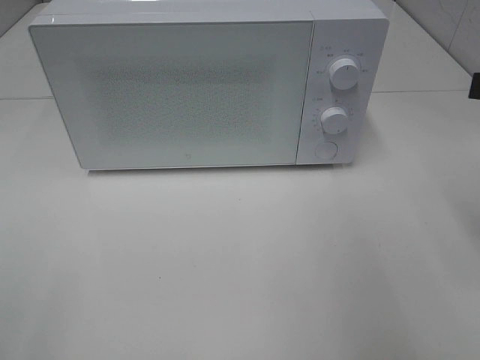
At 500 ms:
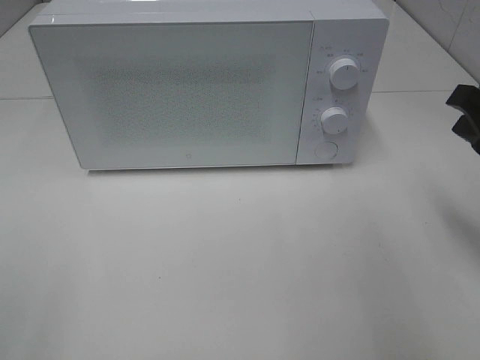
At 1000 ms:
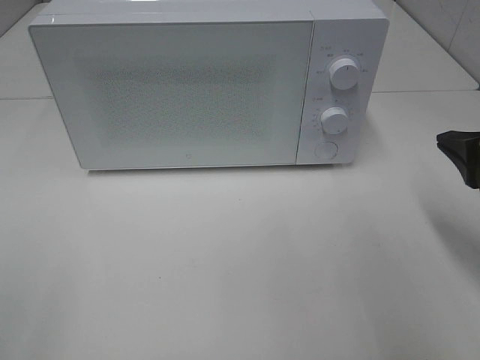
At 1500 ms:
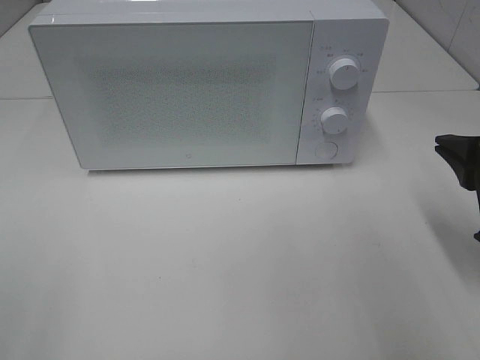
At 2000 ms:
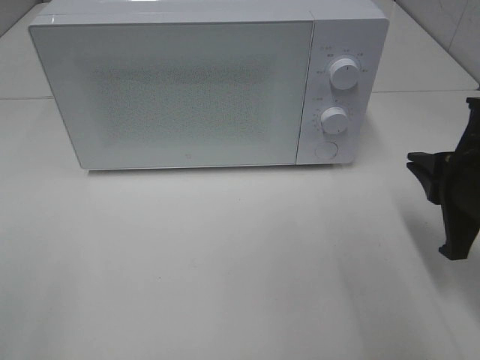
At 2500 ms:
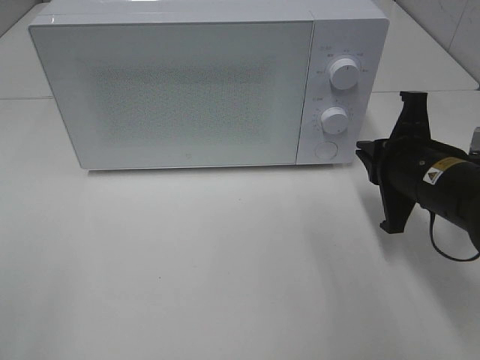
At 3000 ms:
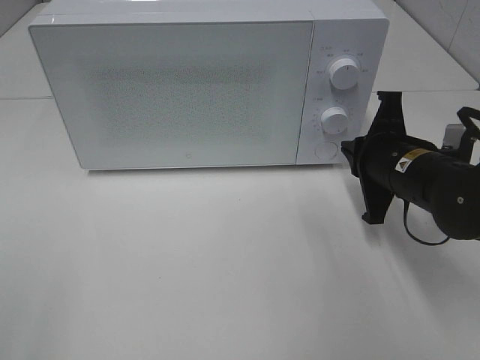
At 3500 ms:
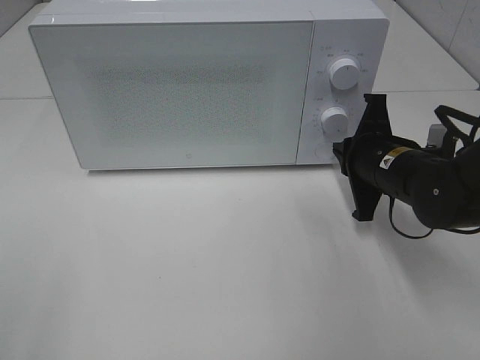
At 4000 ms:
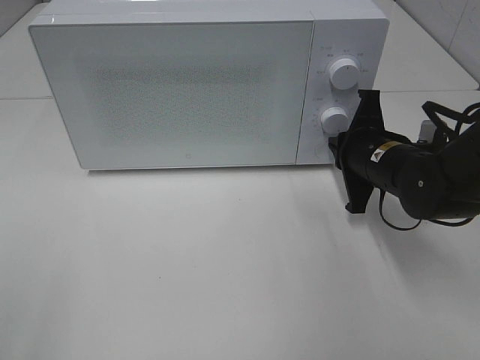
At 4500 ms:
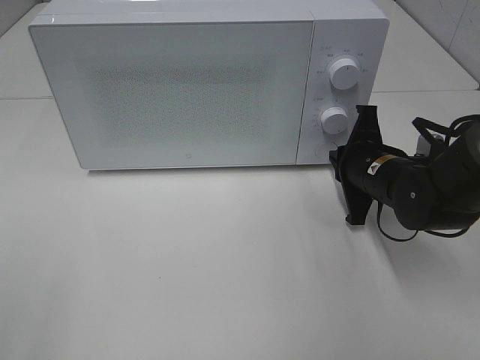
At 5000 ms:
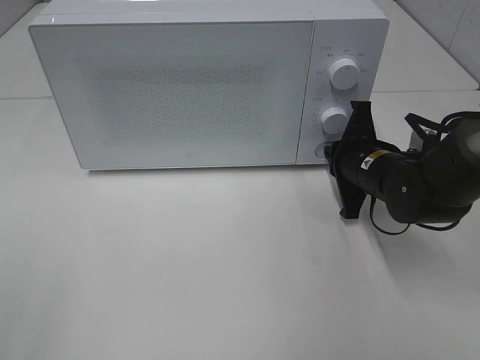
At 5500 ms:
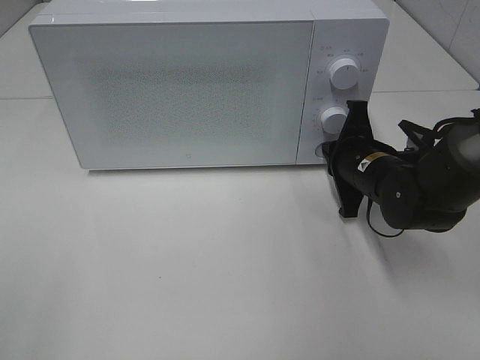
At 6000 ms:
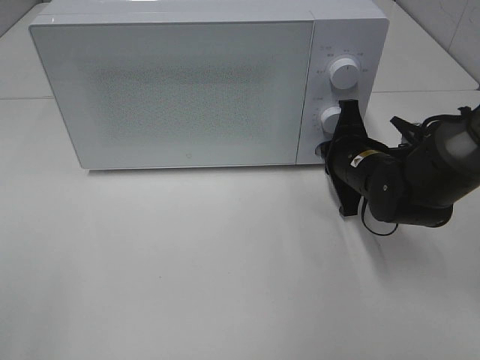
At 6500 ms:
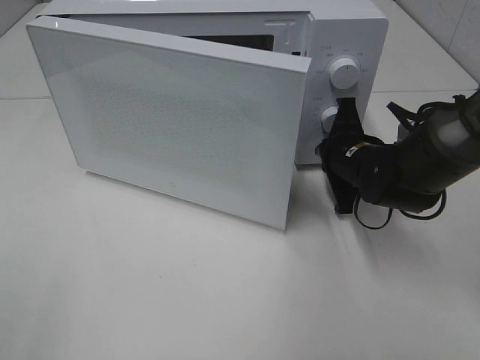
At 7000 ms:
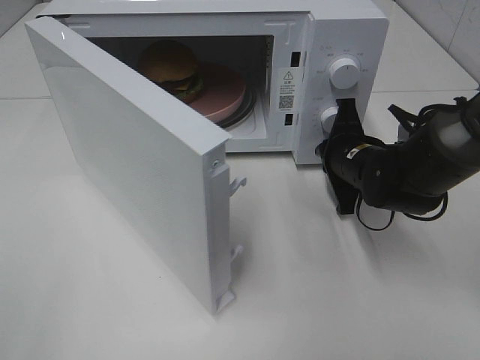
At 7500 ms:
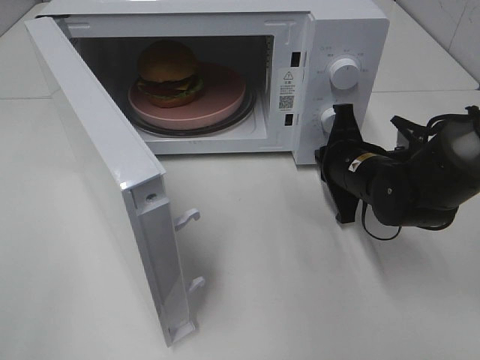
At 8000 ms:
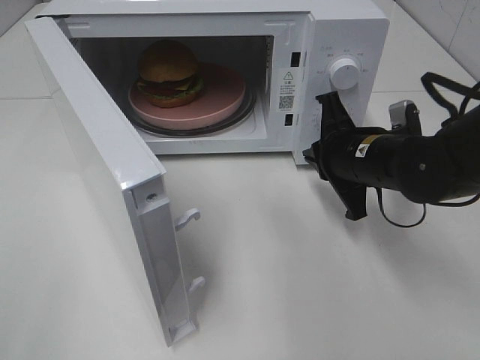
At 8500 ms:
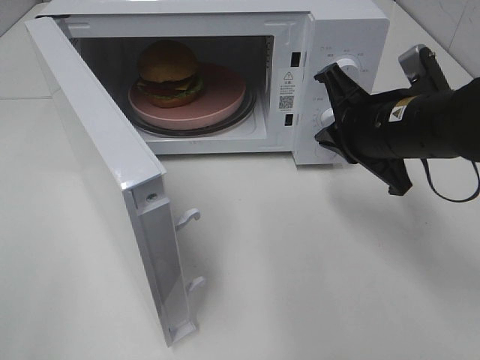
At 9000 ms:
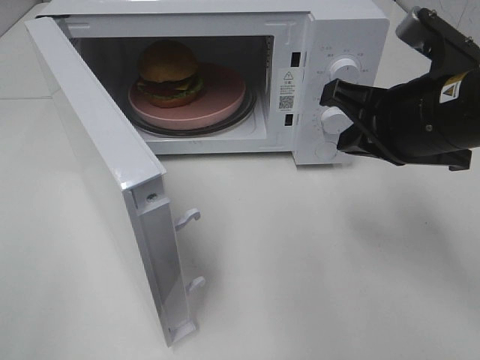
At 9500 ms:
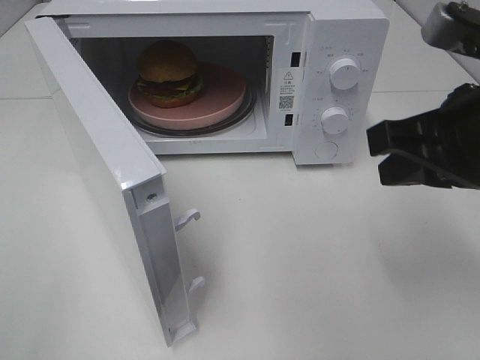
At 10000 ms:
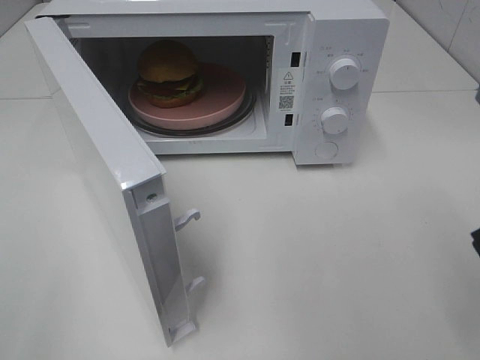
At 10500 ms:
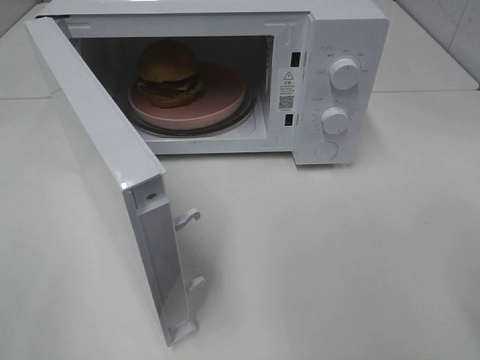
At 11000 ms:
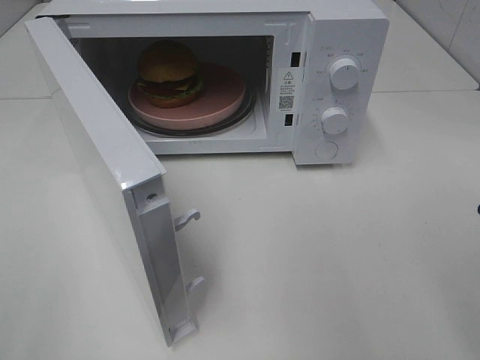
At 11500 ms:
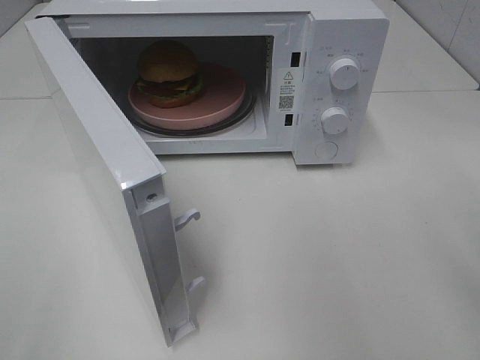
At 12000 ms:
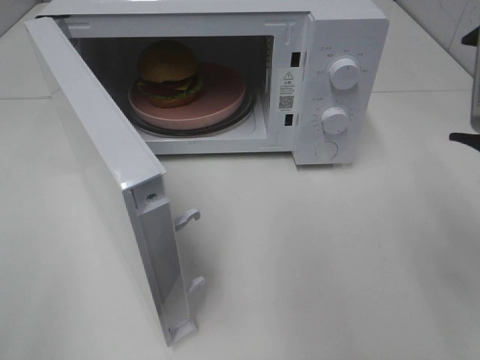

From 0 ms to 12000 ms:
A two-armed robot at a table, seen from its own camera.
Task of the whole recording: Heat the burger.
Step, from 0 ms to 7500 ms: Right hand: press the switch.
From 0 ms to 2000 ms: The right gripper heads downward, covering about 10 cm.
From 2000 ms to 4000 ms: The right gripper heads forward, downward and to the left, covering about 15 cm.
From 4000 ms to 6000 ms: The grippers make only small movements.
From 6000 ms to 8000 ms: The right gripper shifts by some 5 cm.
From 8000 ms to 10000 ms: The right gripper is displaced backward, upward and to the right by roughly 25 cm.
From 10000 ms to 12000 ms: The right gripper changes place by approximately 5 cm, and opens up.

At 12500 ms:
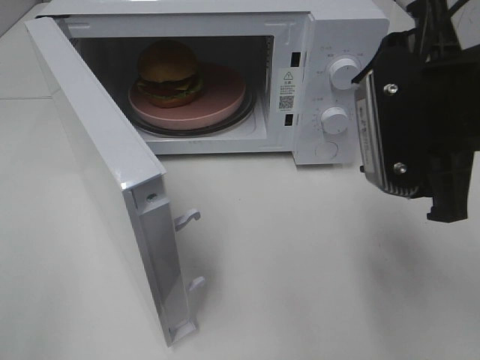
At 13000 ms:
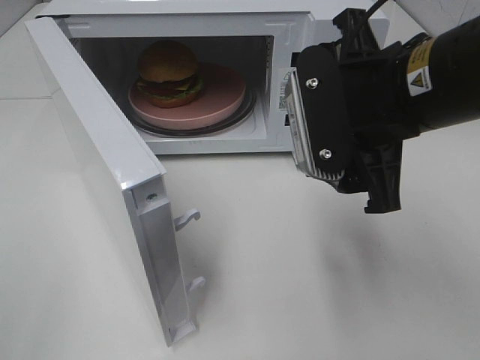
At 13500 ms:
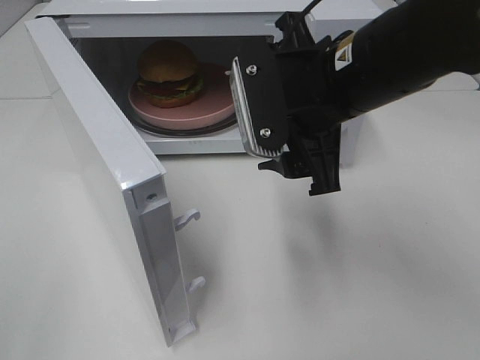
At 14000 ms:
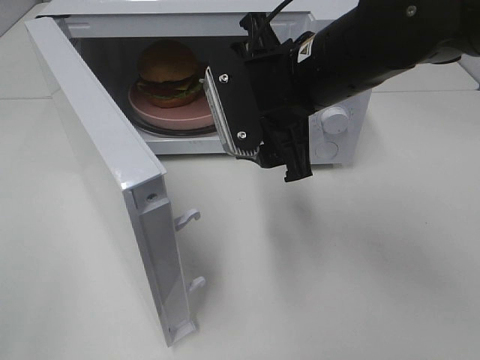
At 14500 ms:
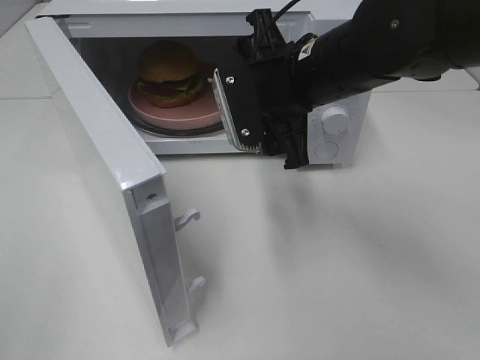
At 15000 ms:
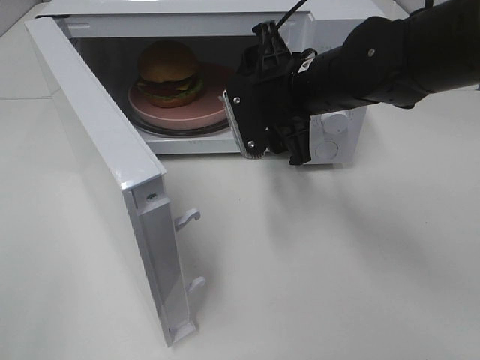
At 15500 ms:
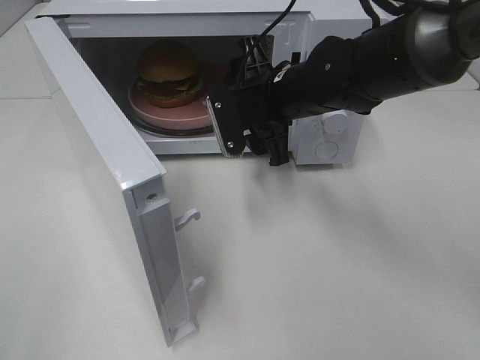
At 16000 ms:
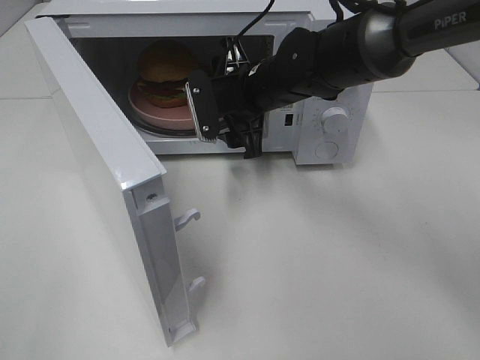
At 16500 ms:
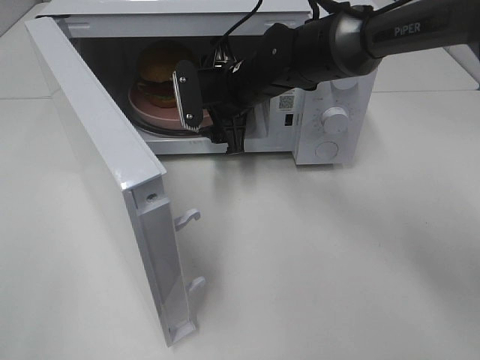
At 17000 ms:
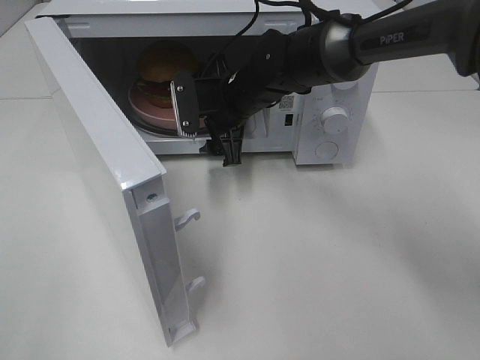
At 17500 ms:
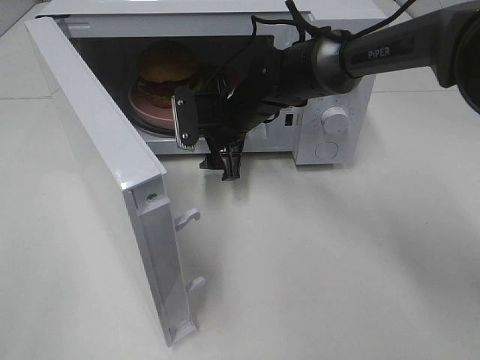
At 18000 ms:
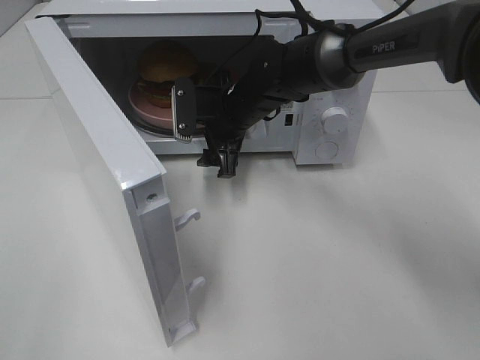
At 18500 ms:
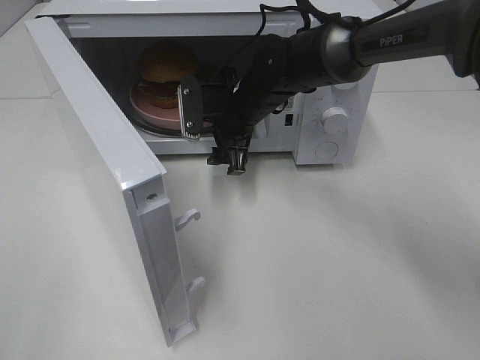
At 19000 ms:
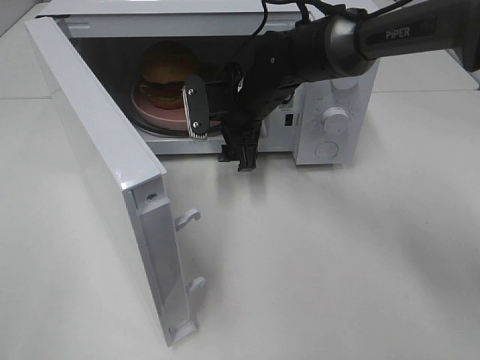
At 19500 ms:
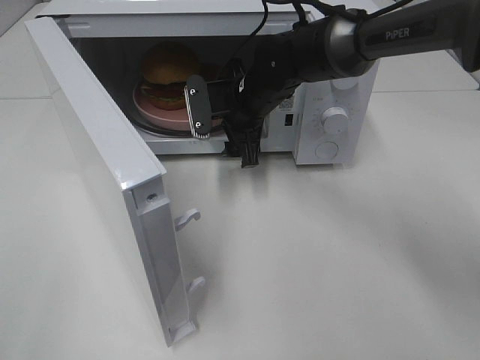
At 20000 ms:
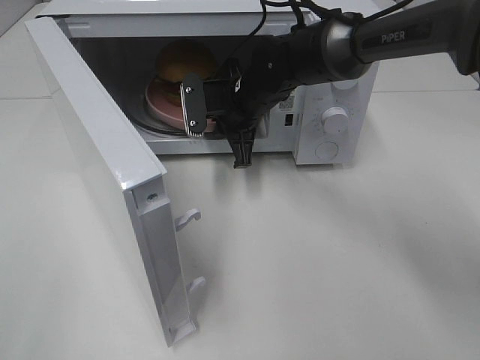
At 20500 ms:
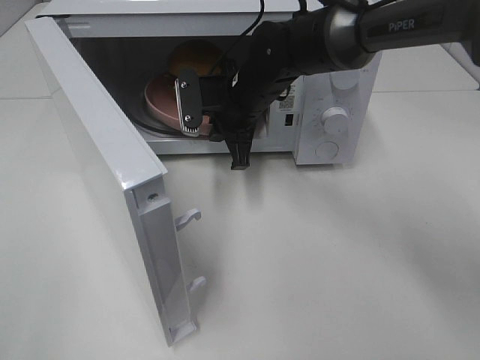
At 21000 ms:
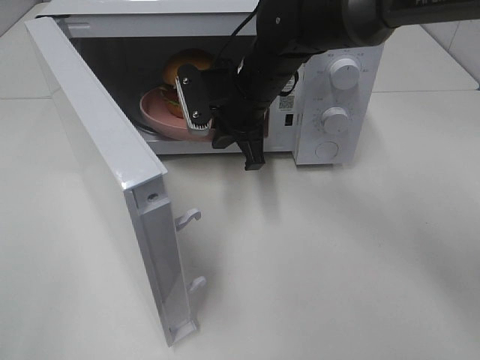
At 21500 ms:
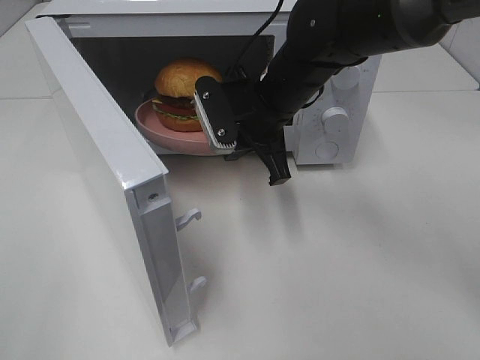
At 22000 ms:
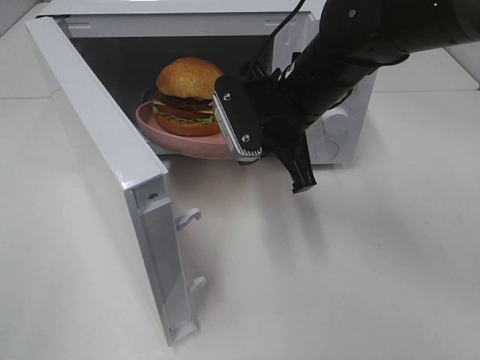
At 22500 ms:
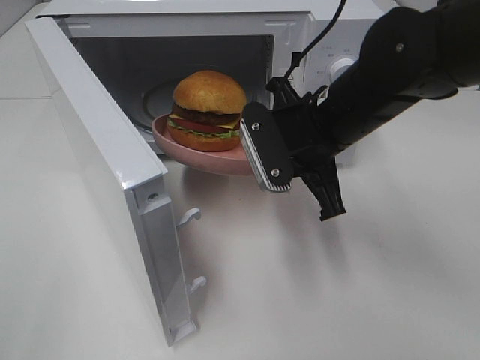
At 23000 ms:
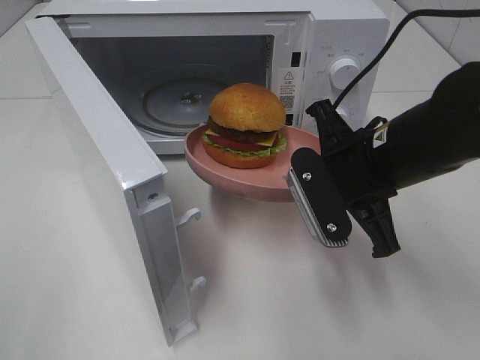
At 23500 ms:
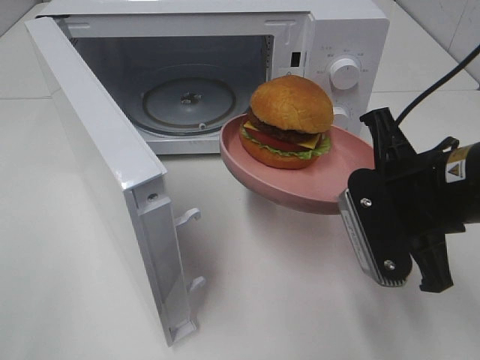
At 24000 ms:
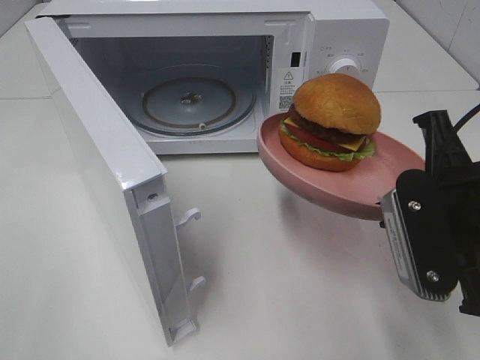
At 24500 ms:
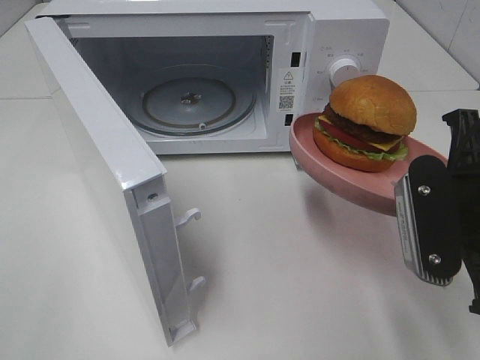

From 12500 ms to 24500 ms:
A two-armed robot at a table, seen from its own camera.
Task of the whole recording: Heat the burger.
Step, from 12500 ms to 20000 ms: Right hand: grab the plate with the hamburger.
From 12500 ms to 14500 ms: The right gripper shifts some 15 cm forward and to the left.
From 14500 ms to 16500 ms: The right gripper travels forward, downward and to the left by roughly 15 cm.
From 16500 ms to 18500 ms: The grippers make only small movements.
From 18500 ms to 20500 ms: The right gripper closes up.
From 20500 ms to 22500 ms: The right gripper heads backward and to the right, covering some 15 cm.
From 22500 ms to 24500 ms: The right gripper travels backward and to the right by roughly 15 cm.

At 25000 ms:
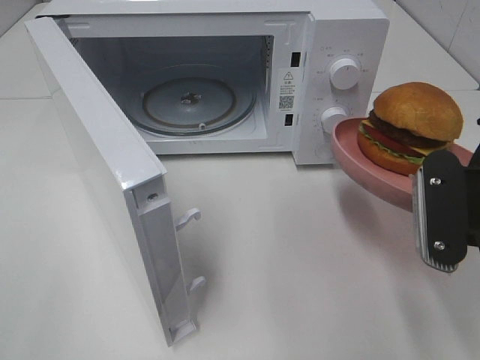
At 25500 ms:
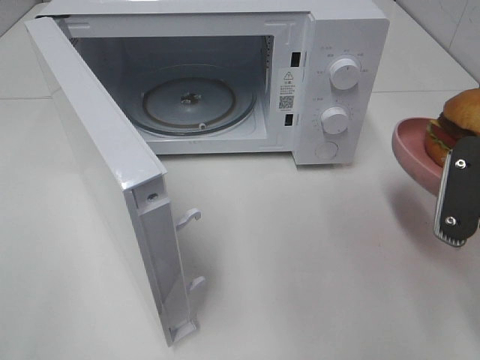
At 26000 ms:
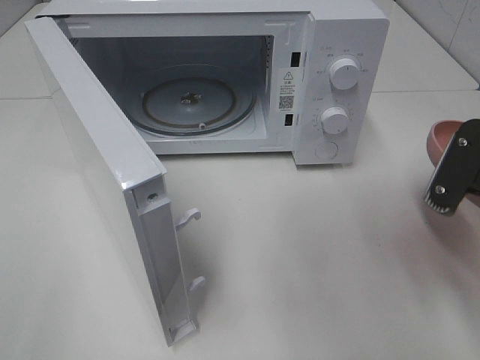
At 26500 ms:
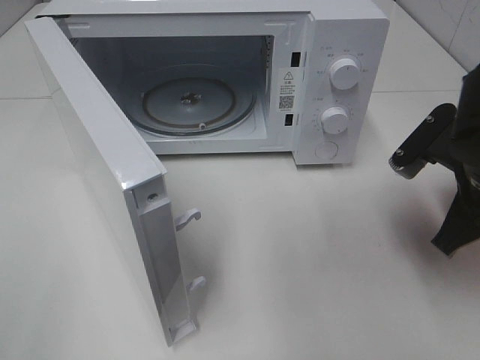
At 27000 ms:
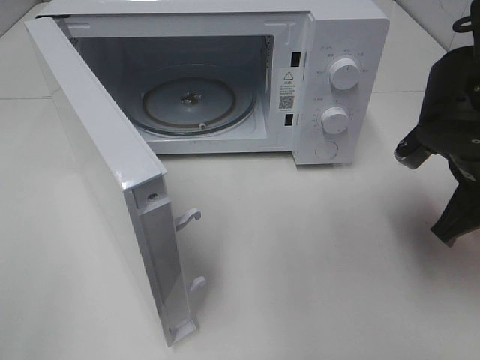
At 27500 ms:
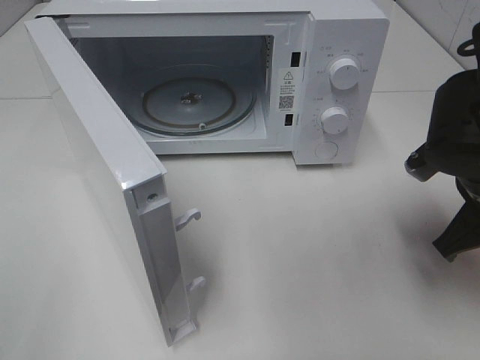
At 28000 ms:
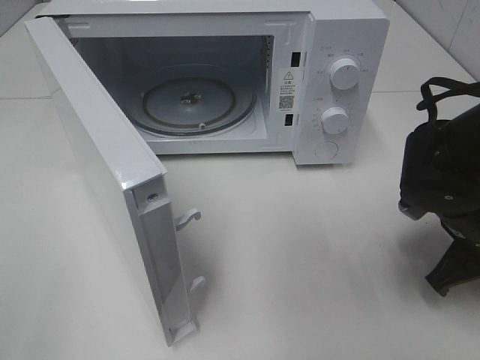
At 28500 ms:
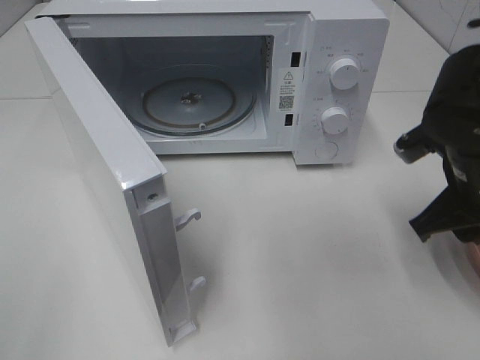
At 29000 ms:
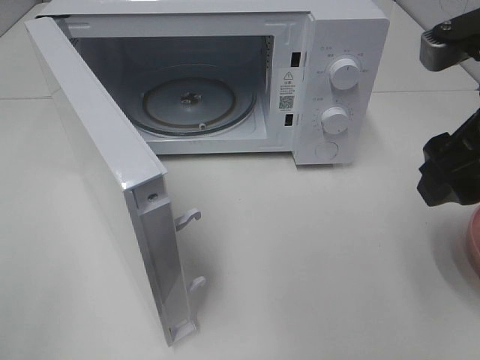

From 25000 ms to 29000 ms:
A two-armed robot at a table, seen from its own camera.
Task of the whole recording: Heat the burger.
Step, from 25000 ms to 28000 ms: Right hand: place the plate on the table.
From 25000 ms to 27000 ms: The right gripper shifts approximately 10 cm forward.
From 27000 ms to 29000 ms: The right gripper travels upward and backward by roughly 10 cm, and opens up.
